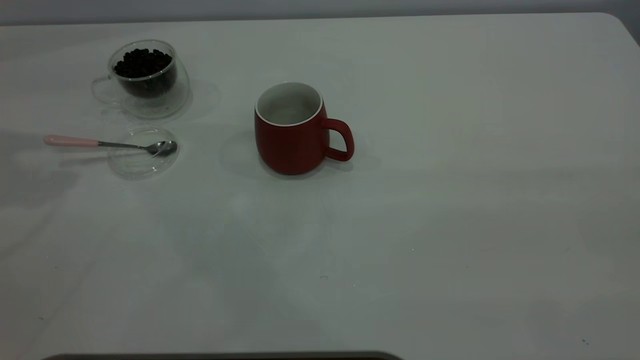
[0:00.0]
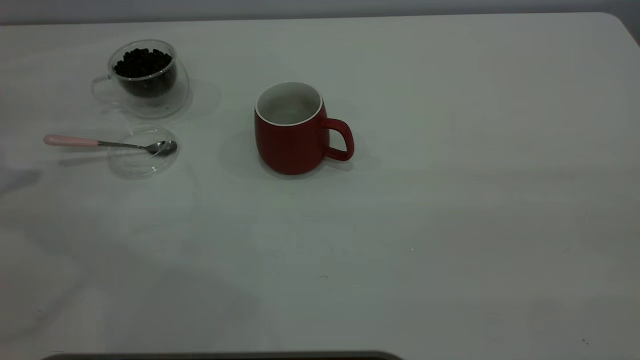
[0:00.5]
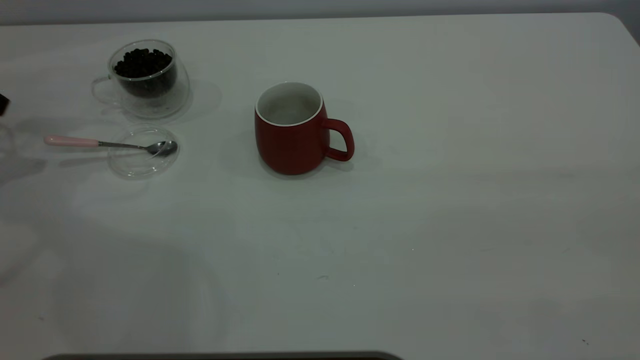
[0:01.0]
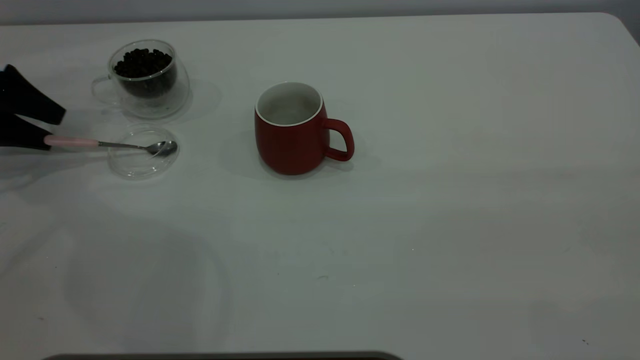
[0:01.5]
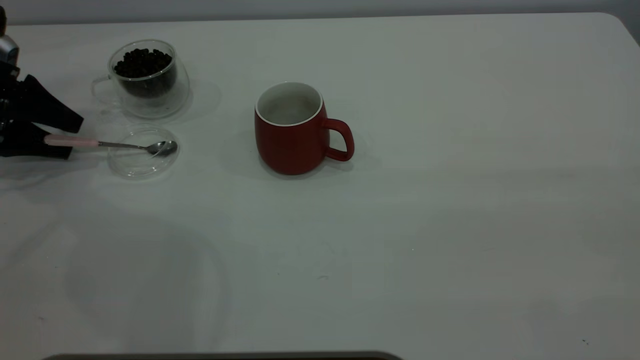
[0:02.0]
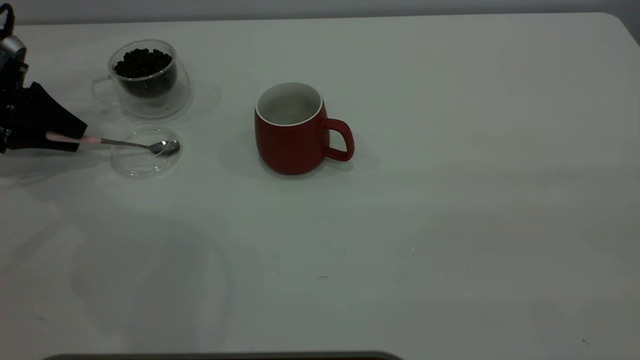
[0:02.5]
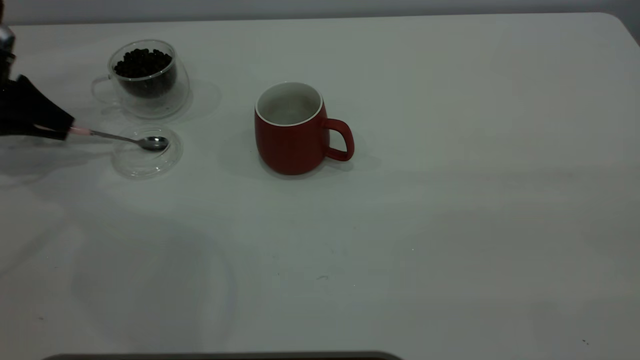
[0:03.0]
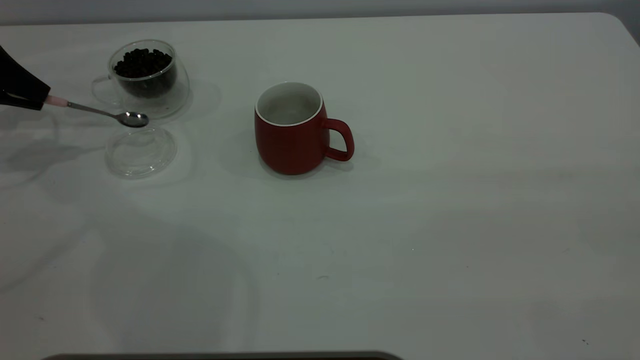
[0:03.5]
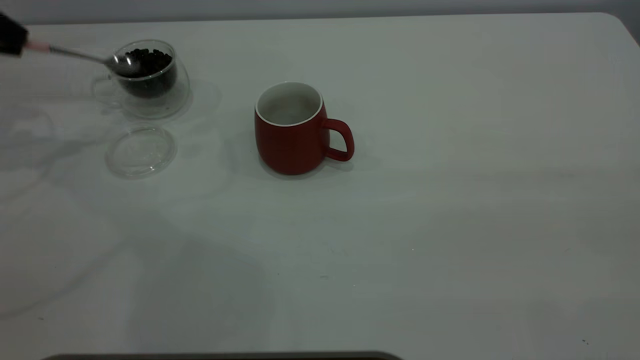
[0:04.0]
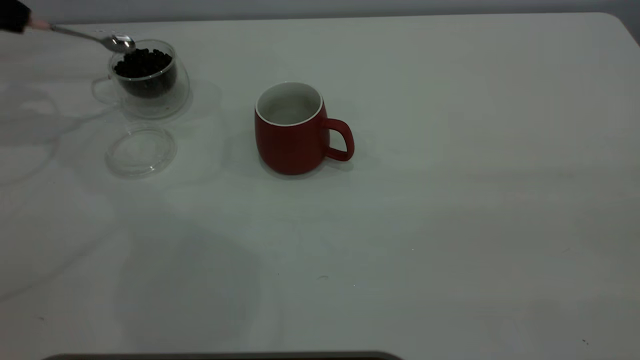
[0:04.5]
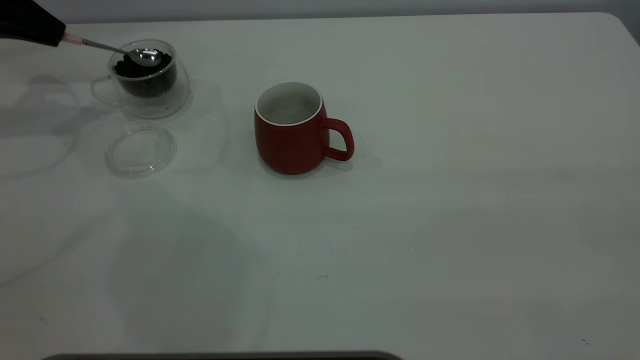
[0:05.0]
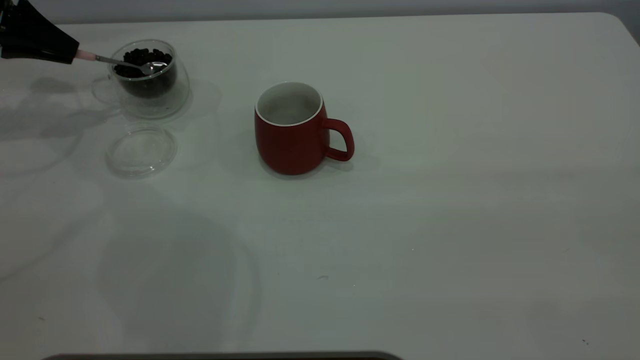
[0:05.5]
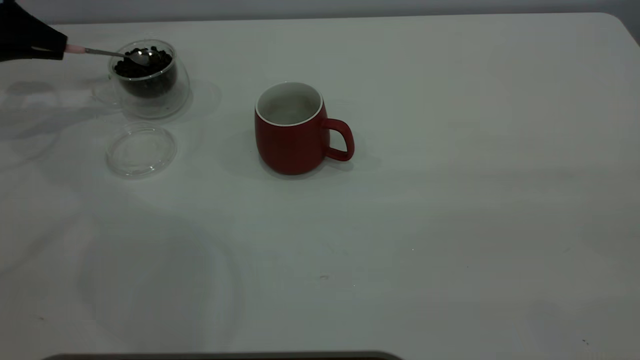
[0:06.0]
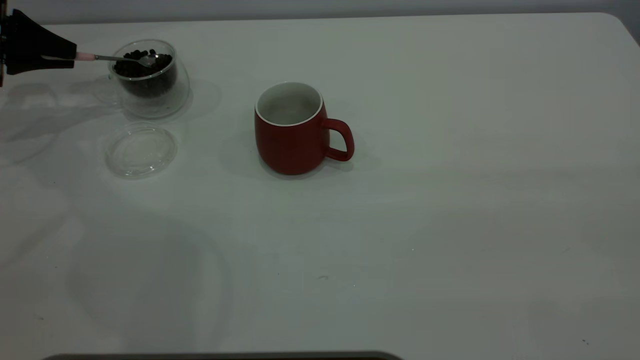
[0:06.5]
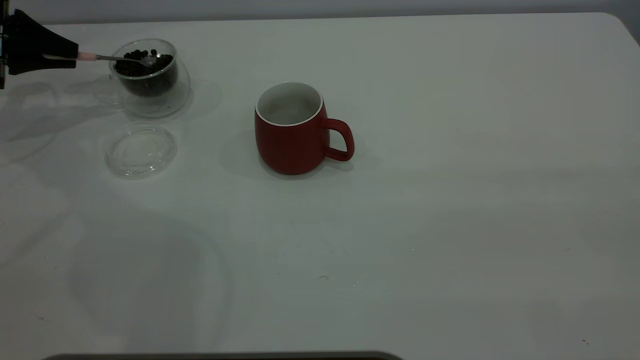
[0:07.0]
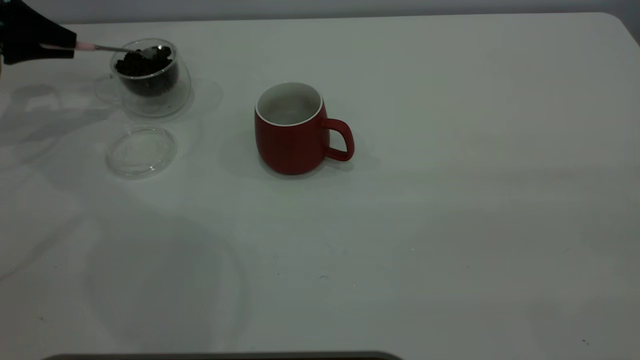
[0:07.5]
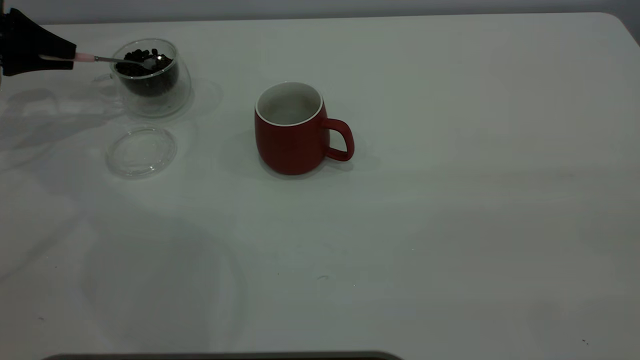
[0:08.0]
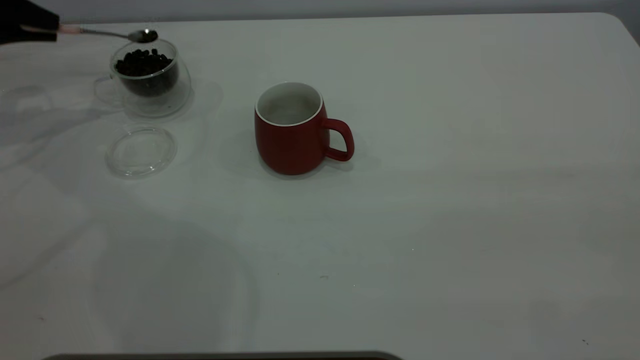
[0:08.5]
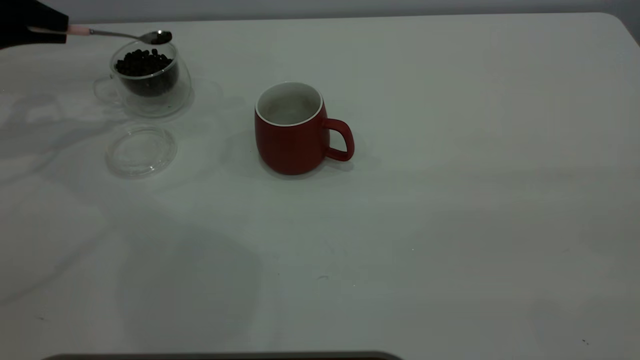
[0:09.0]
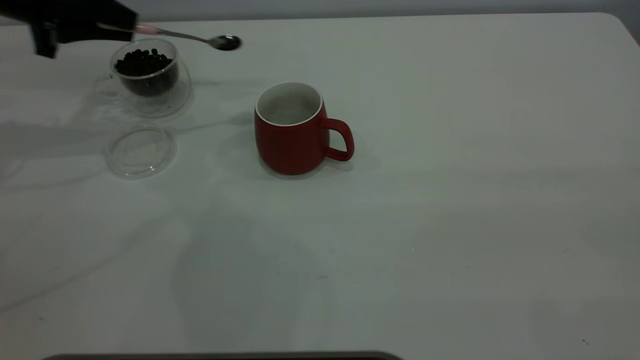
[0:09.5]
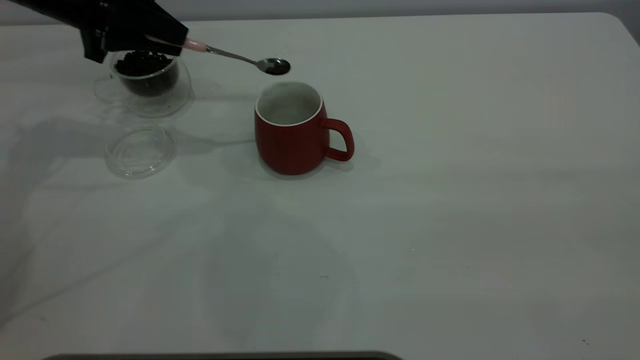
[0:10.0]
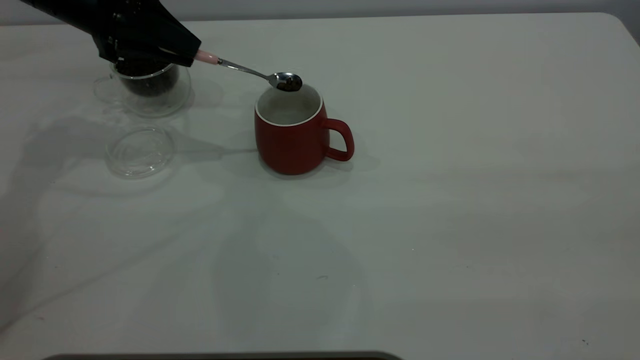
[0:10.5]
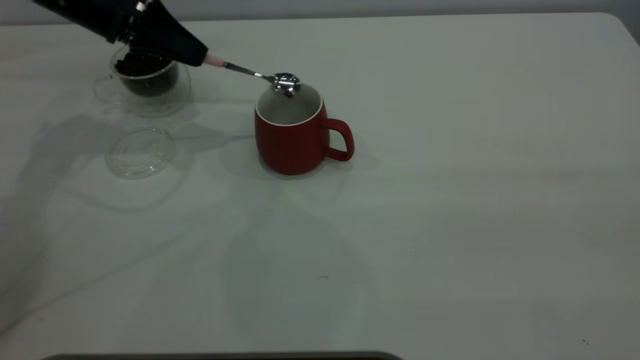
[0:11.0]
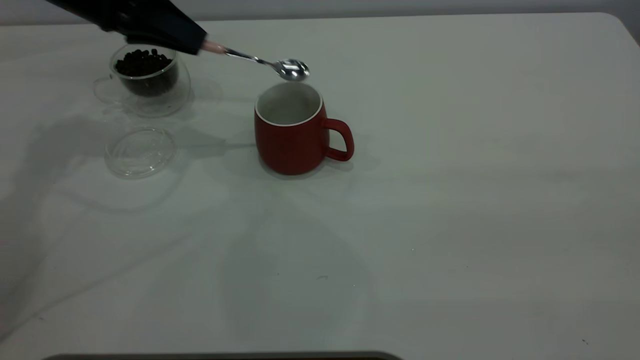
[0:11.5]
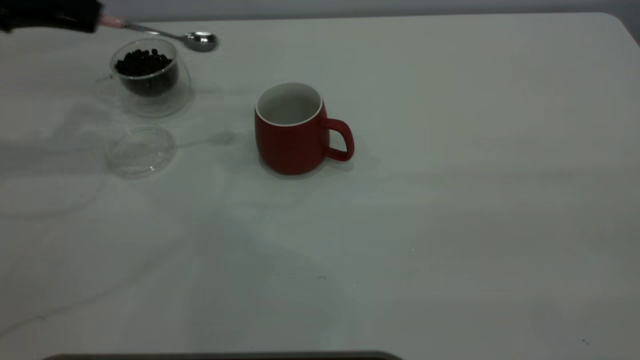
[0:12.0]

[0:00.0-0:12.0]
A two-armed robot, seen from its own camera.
Task of the whole recording: the right gripper place the red cup in the center of the table, the left gripper take the pink spoon from the cup lid and scoop out the coffee beans from the coffee cup and put them into the red cup, the left gripper put the spoon back into the cup lid.
Step, 0:00.0 to 0:03.5: Pick up the spoon.
Step, 0:04.0 to 0:11.5: Scoop a spoonful of beans into the cup.
0:00.0 to 0:02.0: The left gripper goes about 25 cm downward.
0:02.0 to 0:04.0: The left gripper travels upward by some 15 cm, and closes up.
0:04.0 to 0:06.0: The left gripper is displaced downward and forward by approximately 10 cm.
0:06.0 to 0:08.0: The grippers stay close to where they were, moving slightly.
0:08.0 to 0:10.0: The left gripper travels to the right by approximately 15 cm.
0:10.0 to 0:12.0: The left gripper shifts about 10 cm to the left.

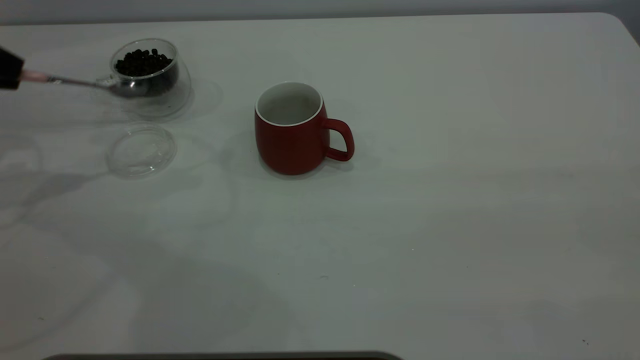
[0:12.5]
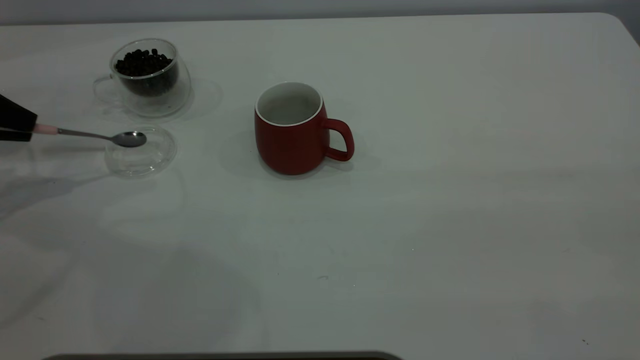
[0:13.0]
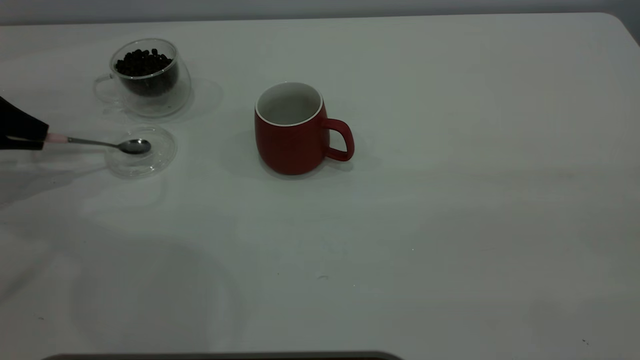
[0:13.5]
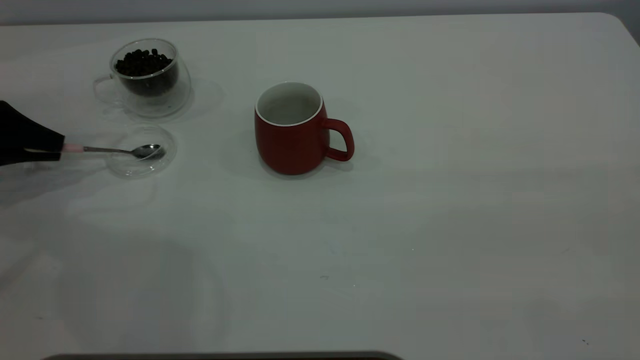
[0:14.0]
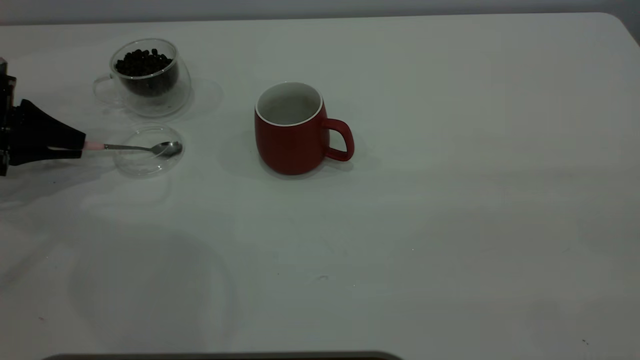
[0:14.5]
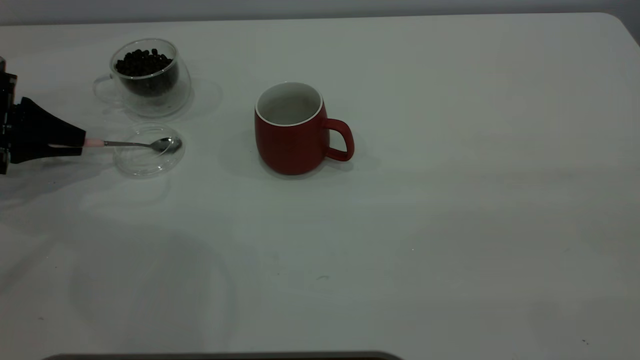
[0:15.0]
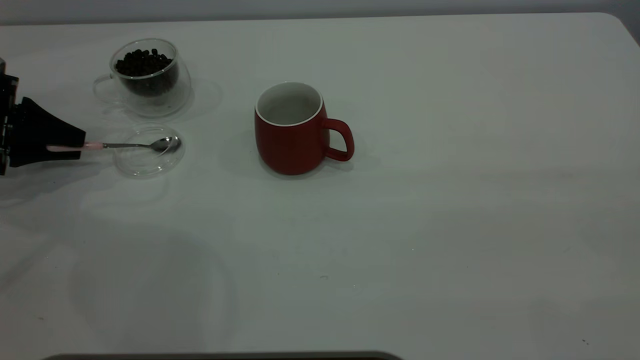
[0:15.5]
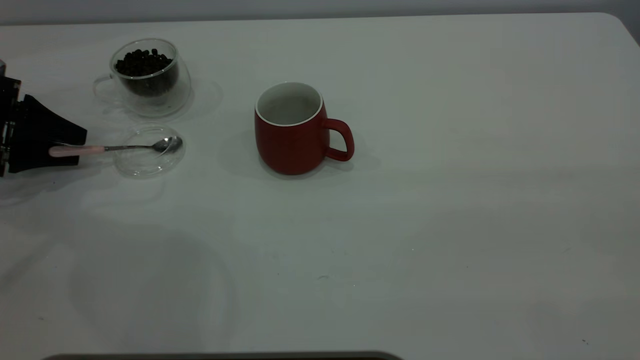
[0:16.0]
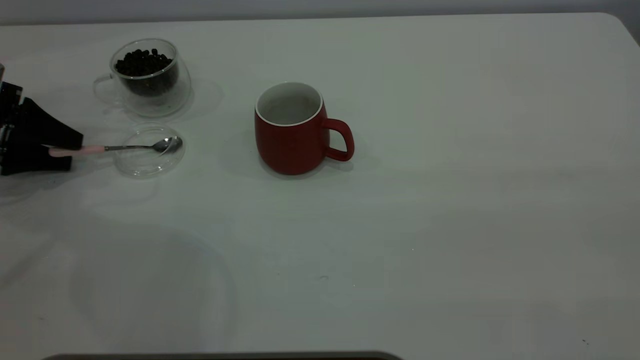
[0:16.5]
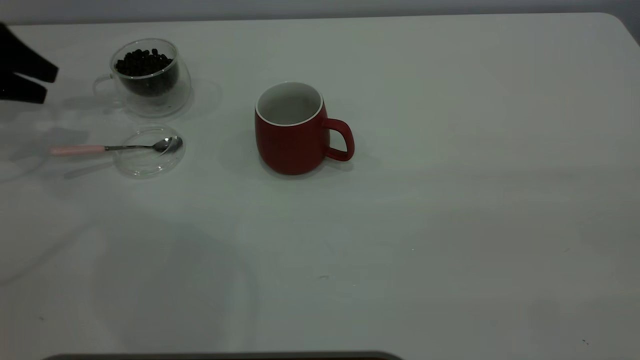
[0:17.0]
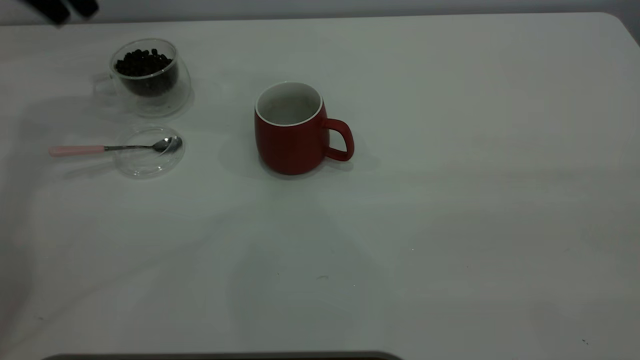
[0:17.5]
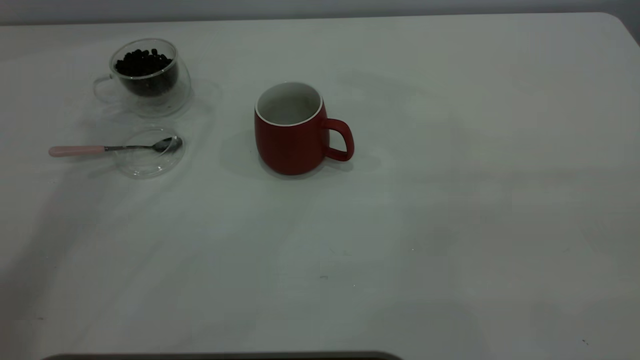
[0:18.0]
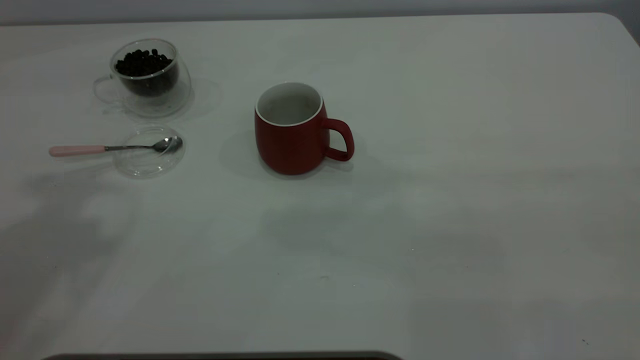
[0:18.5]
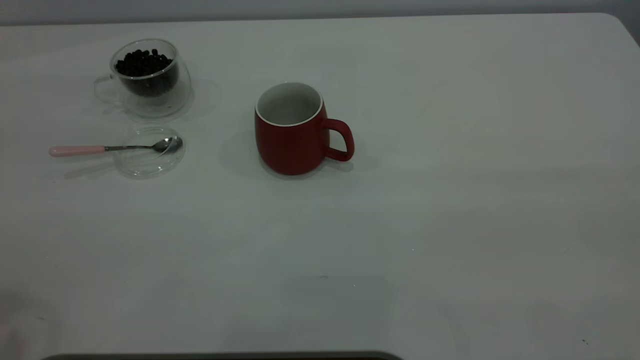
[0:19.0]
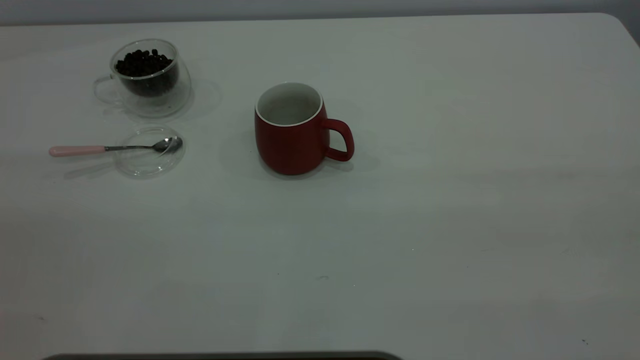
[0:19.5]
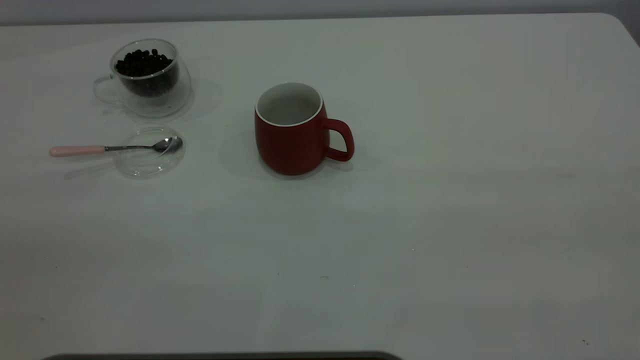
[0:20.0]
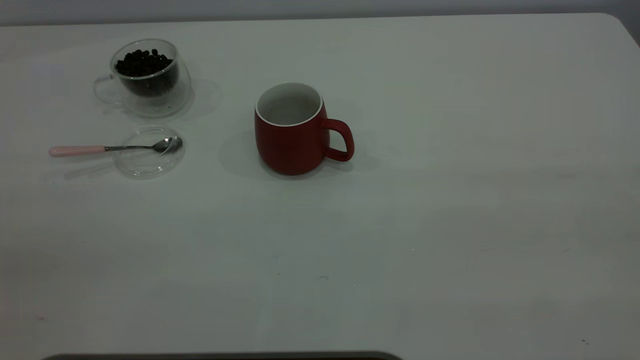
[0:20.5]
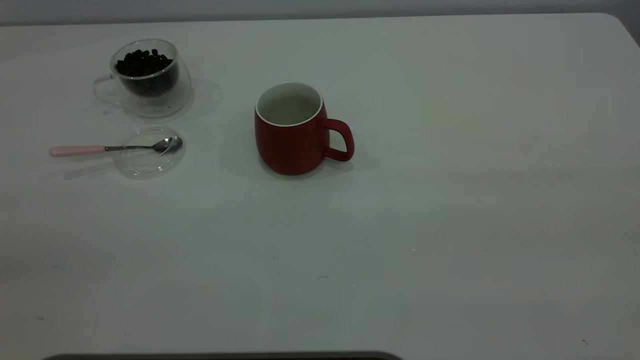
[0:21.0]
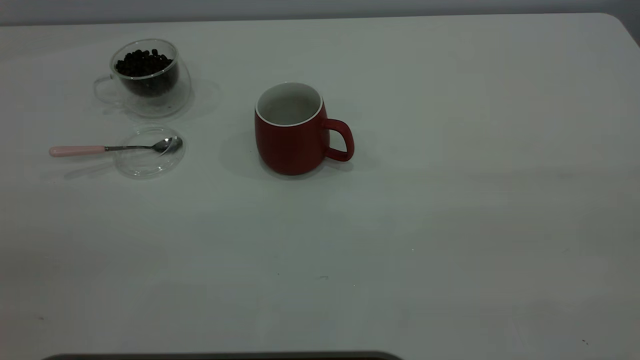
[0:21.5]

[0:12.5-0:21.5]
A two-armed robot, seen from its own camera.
Task of the whole recording: the right gripper place the red cup in the center of the table, the left gripper take the pink spoon from the cup lid and scoop out the coffee beans from the coffee cup and put them into the red cup, the left gripper put the spoon back into the cup lid.
Step, 0:12.5 to 0:16.5: Place the spoon back in its original place.
0:12.5 to 0:14.5: The left gripper travels downward by about 10 cm.
0:14.5 to 0:17.0: The left gripper shifts about 10 cm upward and forward, and opens.
0:17.0 to 0:19.5: The left gripper travels backward and upward by some 50 cm.
